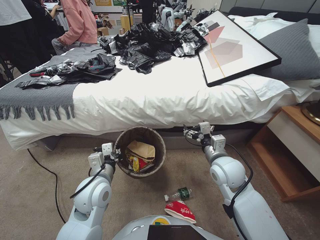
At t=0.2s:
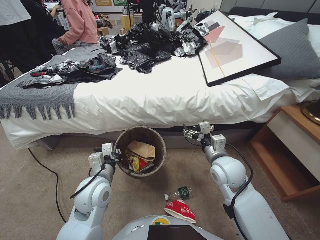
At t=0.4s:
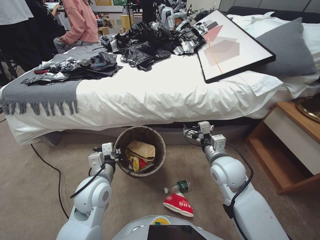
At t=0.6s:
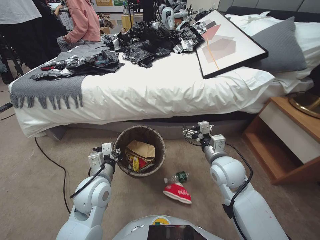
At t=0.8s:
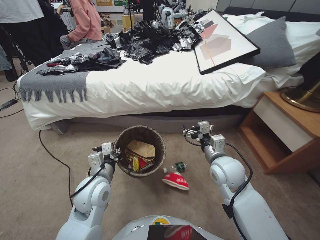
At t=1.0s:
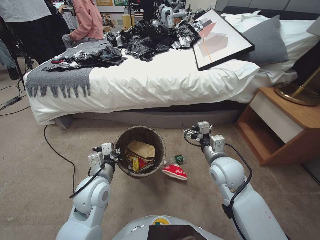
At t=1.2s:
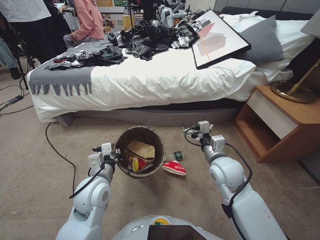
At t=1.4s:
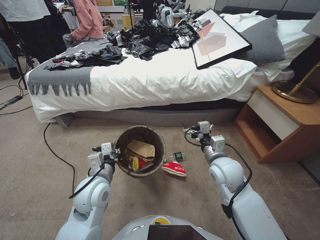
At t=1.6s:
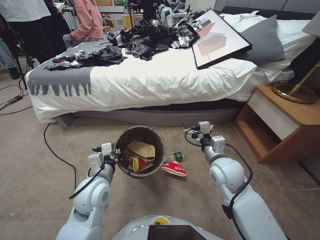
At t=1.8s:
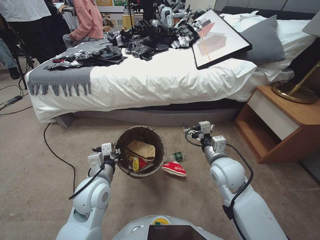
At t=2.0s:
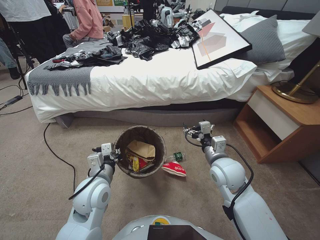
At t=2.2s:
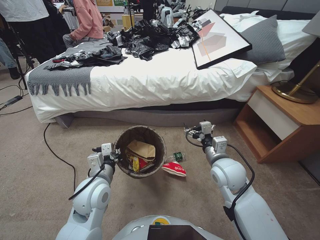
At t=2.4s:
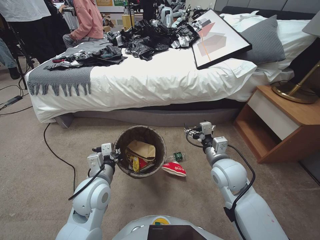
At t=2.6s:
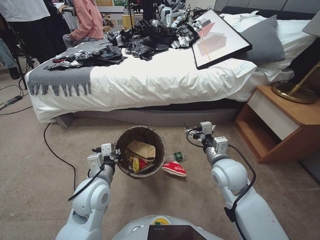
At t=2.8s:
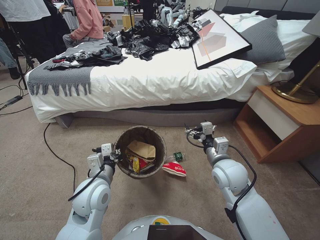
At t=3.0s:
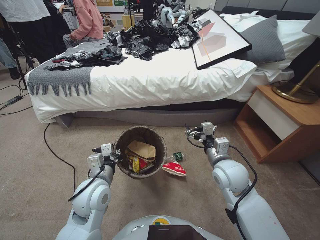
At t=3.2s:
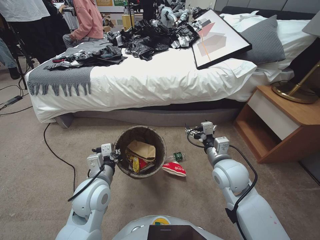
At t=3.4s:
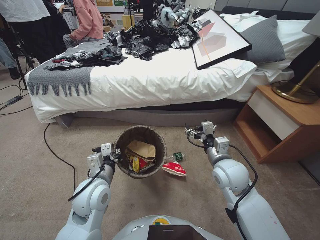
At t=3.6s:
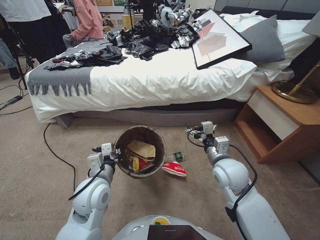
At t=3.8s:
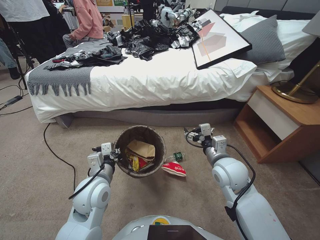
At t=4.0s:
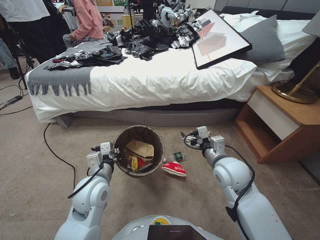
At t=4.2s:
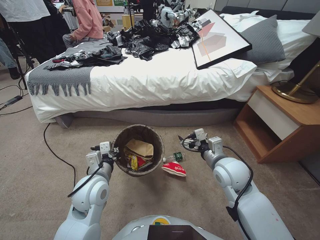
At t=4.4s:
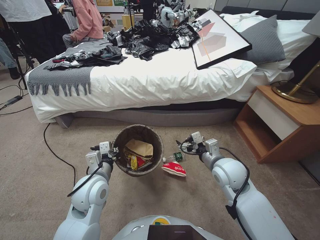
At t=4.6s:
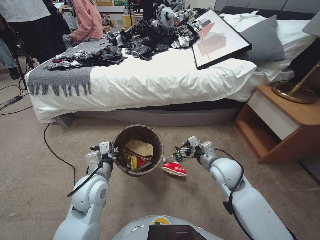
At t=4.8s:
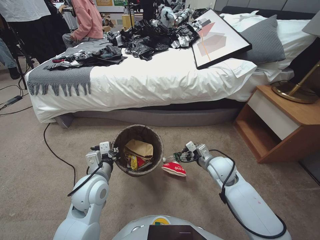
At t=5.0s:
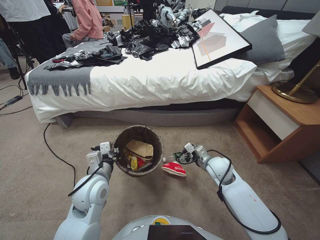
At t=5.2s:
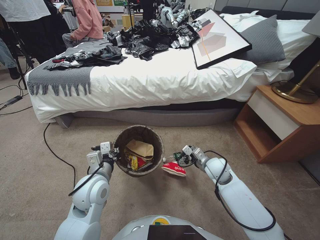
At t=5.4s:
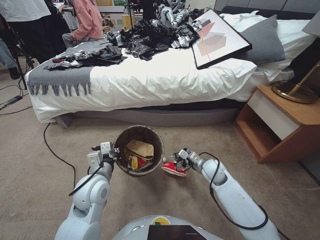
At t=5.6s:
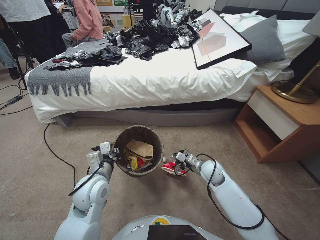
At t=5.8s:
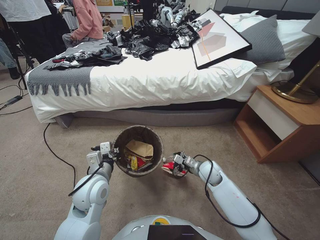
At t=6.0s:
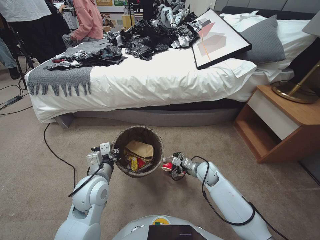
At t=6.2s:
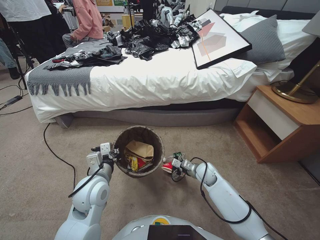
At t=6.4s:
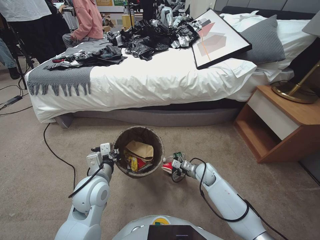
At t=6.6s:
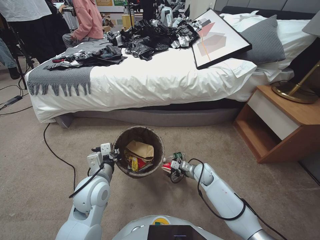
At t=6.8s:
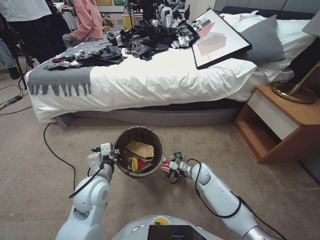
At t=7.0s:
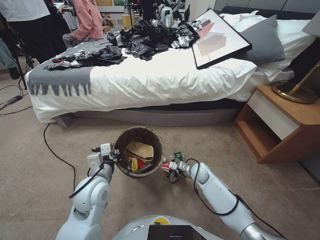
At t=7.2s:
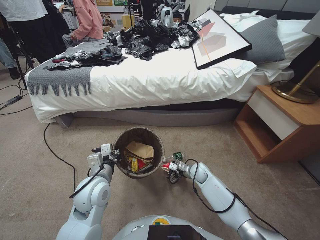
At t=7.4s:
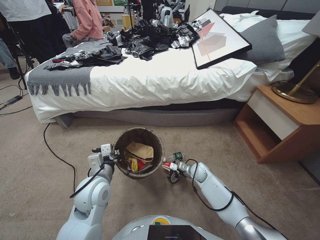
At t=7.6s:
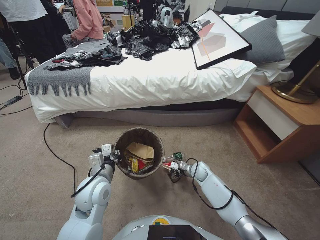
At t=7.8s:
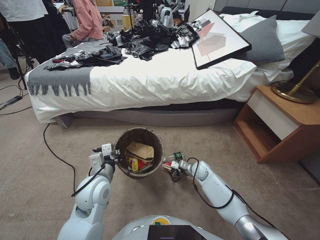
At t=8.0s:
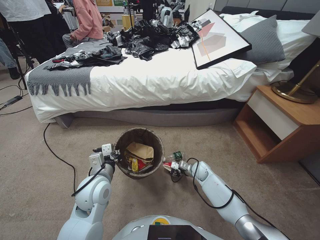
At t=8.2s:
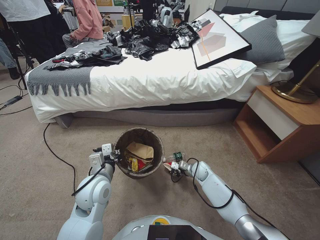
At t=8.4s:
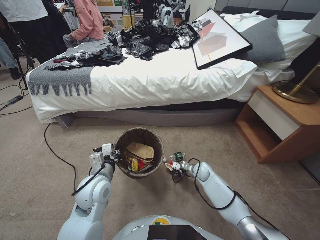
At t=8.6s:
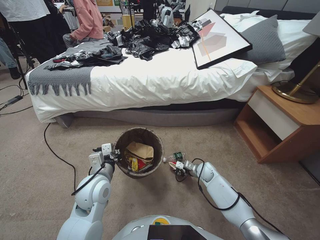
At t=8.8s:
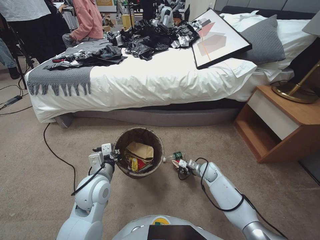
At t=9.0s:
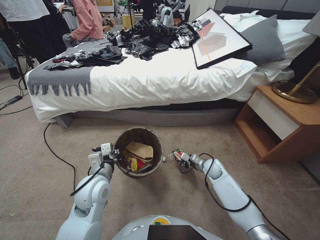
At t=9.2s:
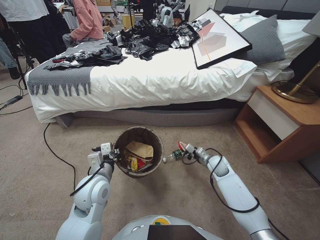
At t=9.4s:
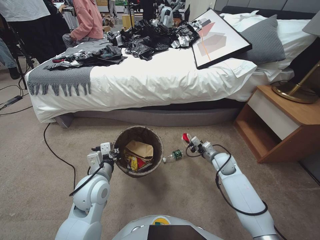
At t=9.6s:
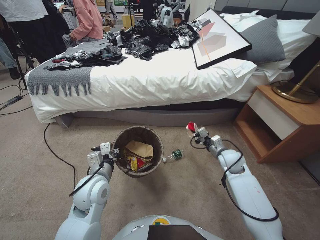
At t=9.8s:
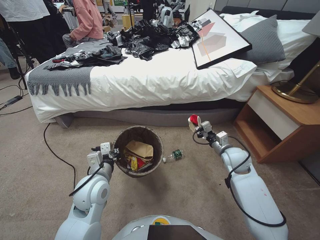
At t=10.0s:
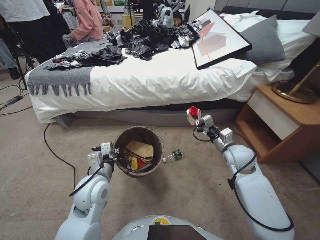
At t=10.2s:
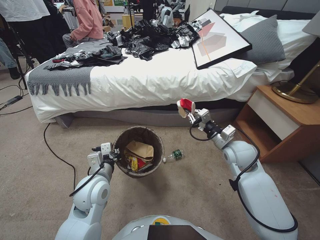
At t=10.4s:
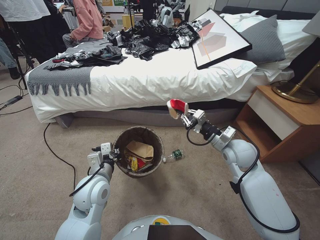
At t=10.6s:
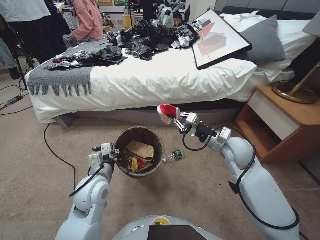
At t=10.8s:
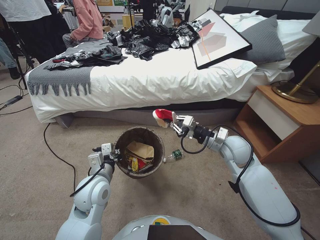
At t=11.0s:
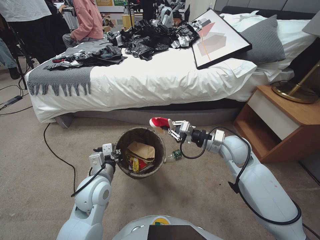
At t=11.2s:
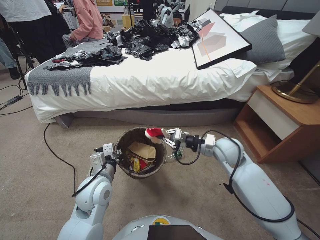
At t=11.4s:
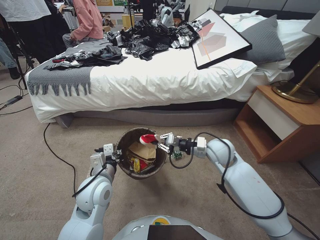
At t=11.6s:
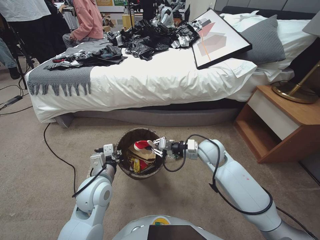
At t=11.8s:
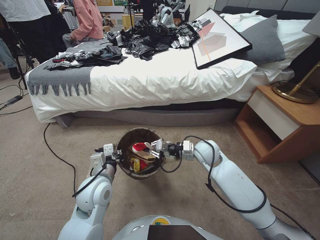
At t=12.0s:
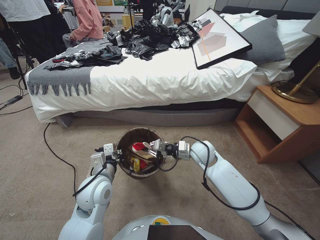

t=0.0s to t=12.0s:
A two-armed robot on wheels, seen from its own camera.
Task of the whole recording: Pick up the trash bin, then pick up the garbage from the floor and place it into the trash bin.
t=1.6s to t=3.0s: Neither gripper changes place.
t=3.0s to t=4.4s: There are only small adjustments of the grippers.
t=4.4s to t=6.0s: The right gripper heads downward and forward, covering approximately 20 cm.
t=6.0s to t=7.6s: The right gripper moves downward, about 10 cm.
t=7.6s to t=9.0s: The right gripper goes some 5 cm to the right, and closes.
t=9.0s to t=10.4s: The right gripper goes about 25 cm upward.
t=10.4s to t=12.0s: The right gripper moves to the left and downward, some 10 cm.

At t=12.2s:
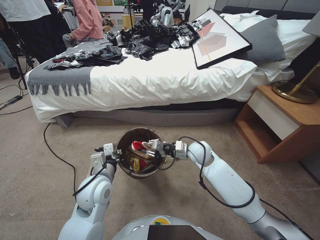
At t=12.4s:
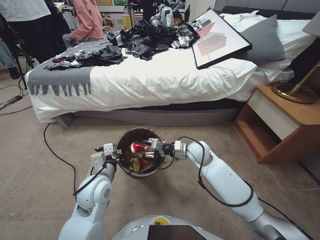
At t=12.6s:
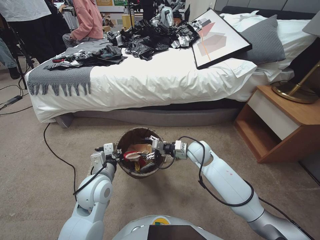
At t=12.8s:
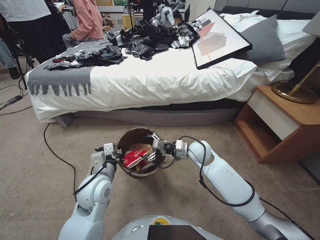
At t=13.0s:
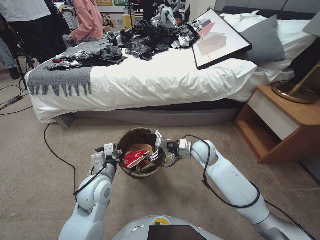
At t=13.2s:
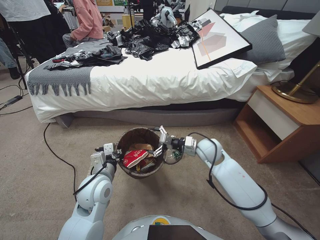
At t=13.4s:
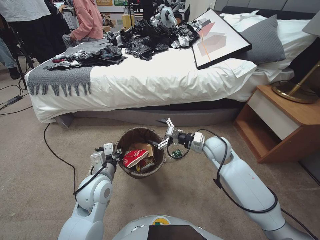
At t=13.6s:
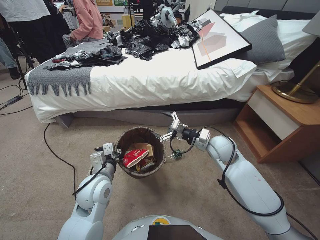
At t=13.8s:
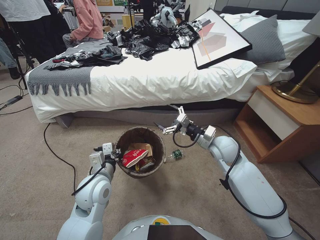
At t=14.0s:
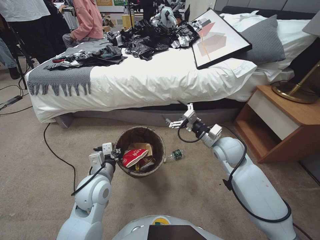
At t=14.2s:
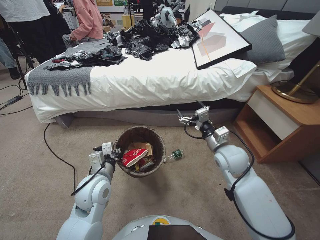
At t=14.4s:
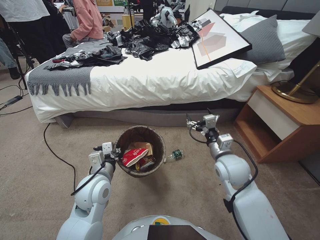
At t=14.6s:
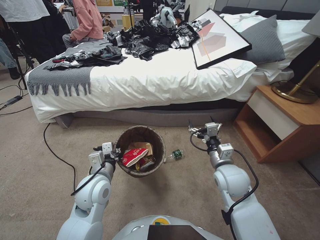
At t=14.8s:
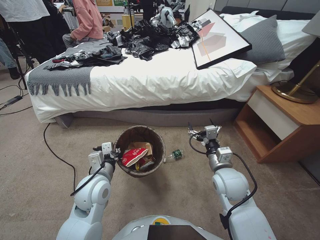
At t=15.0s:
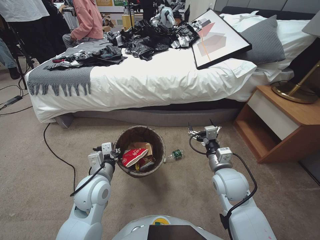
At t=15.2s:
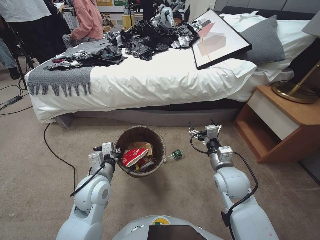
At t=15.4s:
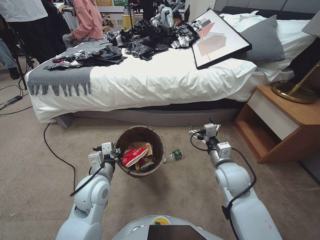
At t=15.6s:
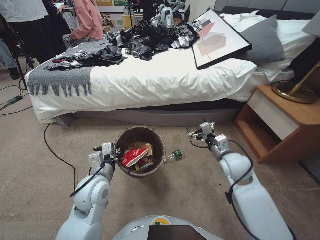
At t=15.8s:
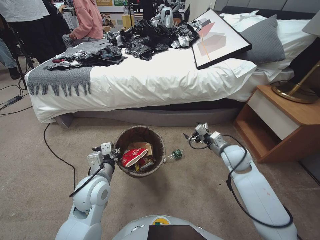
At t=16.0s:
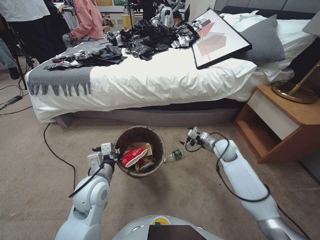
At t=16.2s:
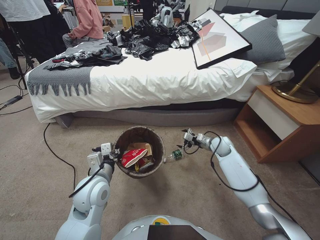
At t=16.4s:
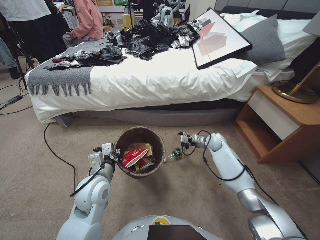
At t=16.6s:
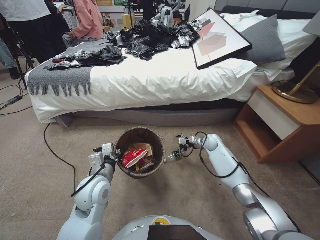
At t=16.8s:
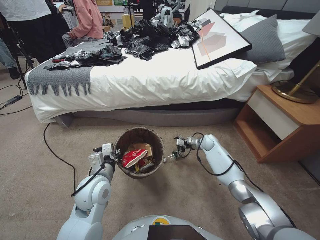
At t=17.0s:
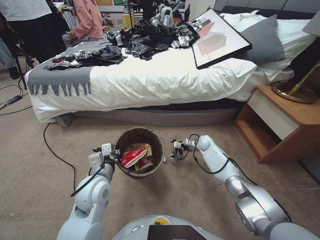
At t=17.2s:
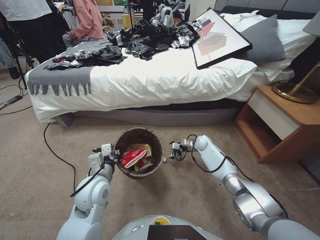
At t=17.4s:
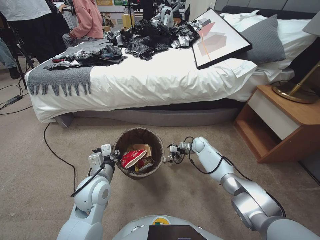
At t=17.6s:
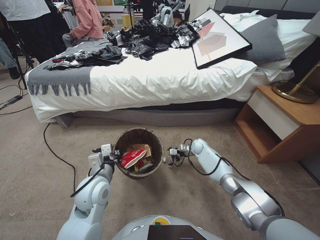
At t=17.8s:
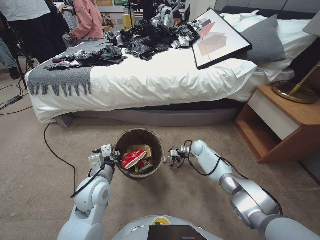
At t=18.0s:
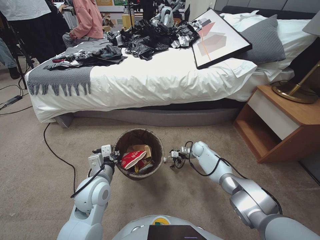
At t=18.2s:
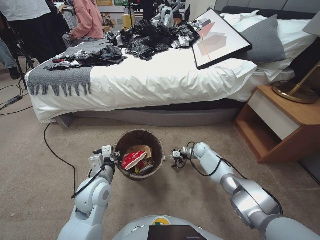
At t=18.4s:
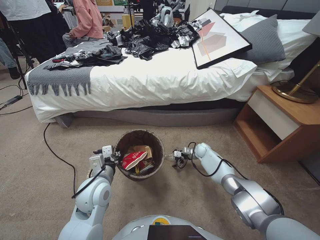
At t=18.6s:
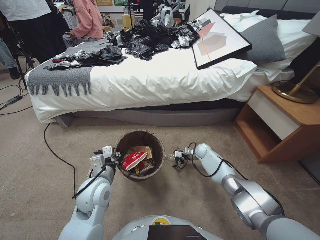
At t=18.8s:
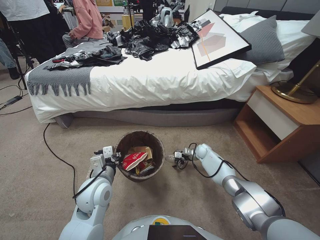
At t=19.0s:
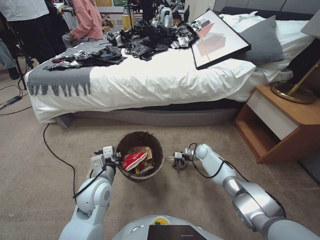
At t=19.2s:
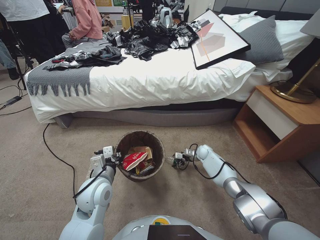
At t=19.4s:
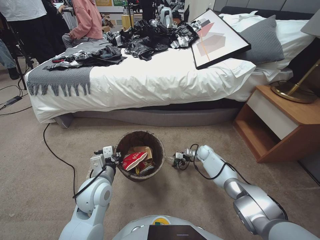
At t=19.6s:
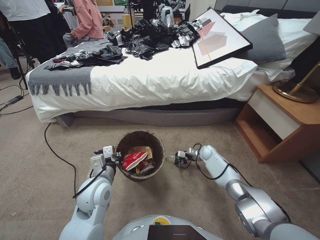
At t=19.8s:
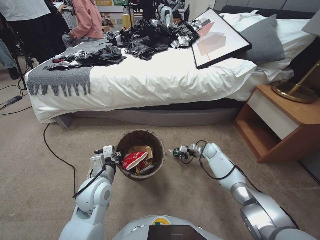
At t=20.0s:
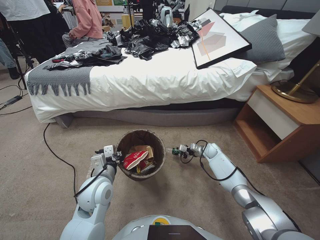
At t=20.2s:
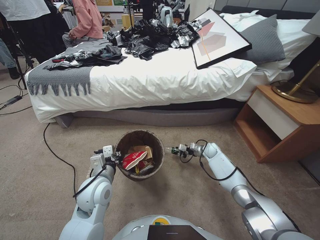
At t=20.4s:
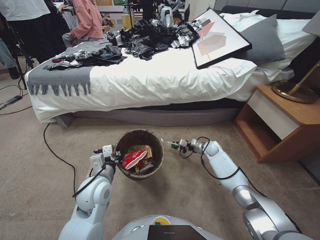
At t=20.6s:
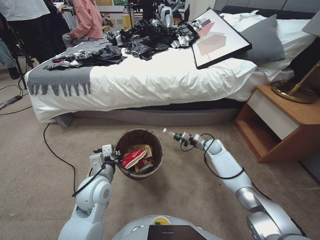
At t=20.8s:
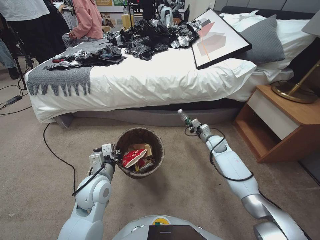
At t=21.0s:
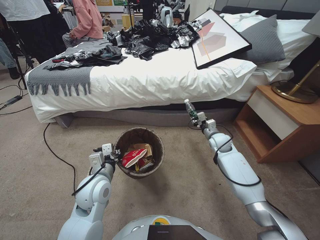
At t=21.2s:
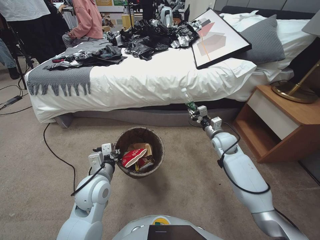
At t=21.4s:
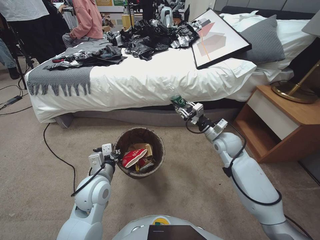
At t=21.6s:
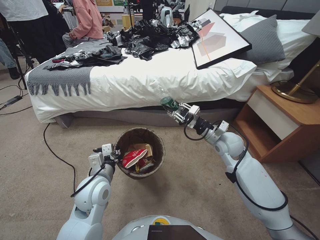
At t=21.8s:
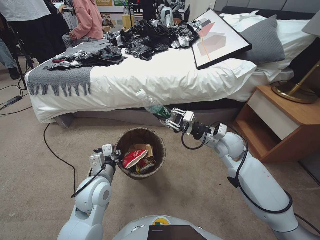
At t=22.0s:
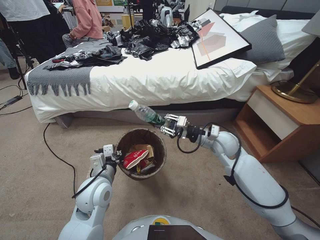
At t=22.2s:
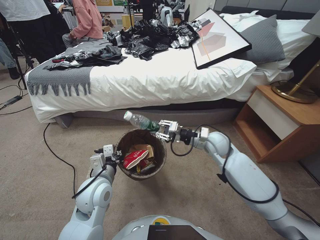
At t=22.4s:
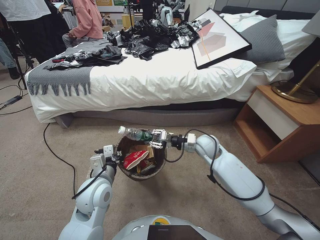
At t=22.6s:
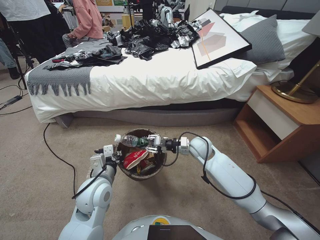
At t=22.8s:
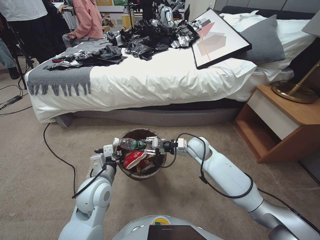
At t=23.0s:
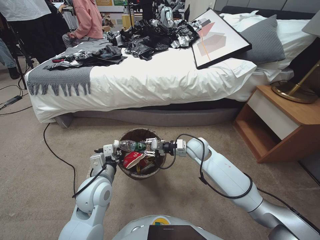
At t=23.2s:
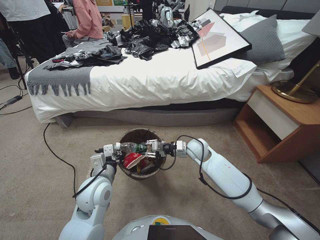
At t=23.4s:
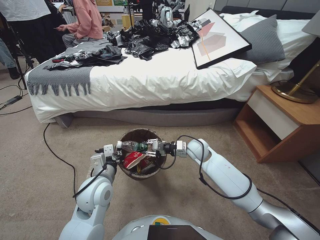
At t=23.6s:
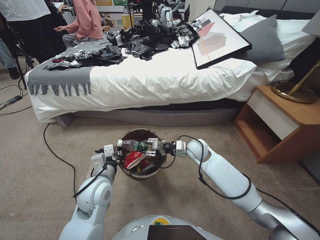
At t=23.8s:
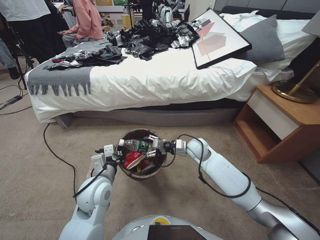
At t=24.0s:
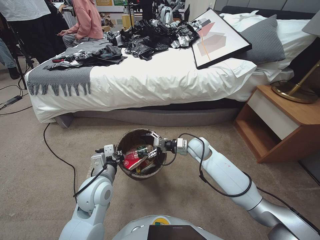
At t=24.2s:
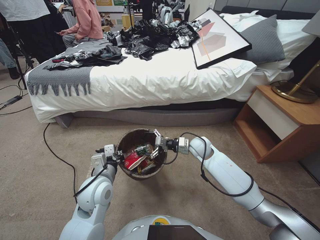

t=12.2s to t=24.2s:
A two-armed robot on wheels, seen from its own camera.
Task of the whole recording: Pick up the trash bin, then pick up the garbage from the floor and place it into the trash bin.
t=12.2s to t=13.8s: The right gripper heads upward and to the right, covering about 10 cm, and opens.
t=13.8s to t=15.2s: The right gripper moves backward, roughly 10 cm.
t=15.2s to t=16.6s: The right gripper heads forward and downward, covering approximately 25 cm.
t=16.6s to t=18.2s: The right gripper heads downward, covering approximately 10 cm.
t=18.2s to t=19.8s: The right gripper closes its fingers.
t=19.8s to t=21.2s: The right gripper heads upward, covering roughly 20 cm.
t=21.2s to t=22.6s: The right gripper moves to the left, about 10 cm.
t=22.6s to t=24.2s: The right gripper opens up.
